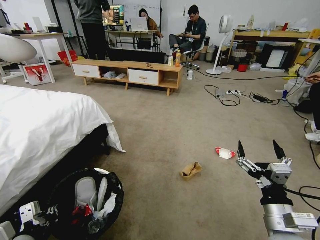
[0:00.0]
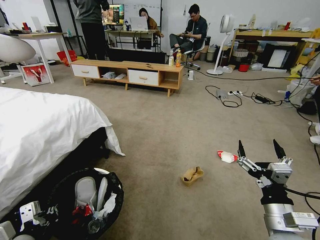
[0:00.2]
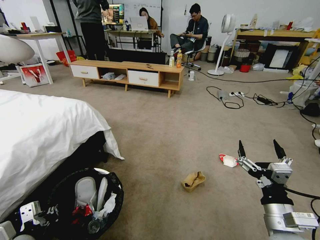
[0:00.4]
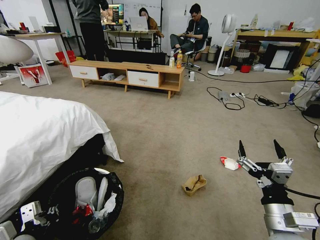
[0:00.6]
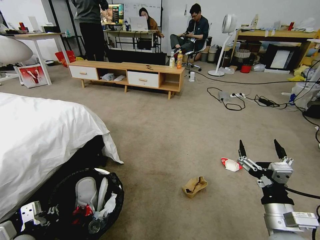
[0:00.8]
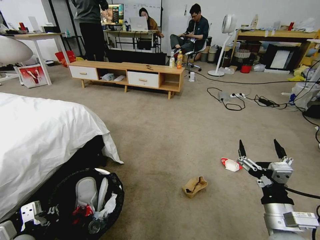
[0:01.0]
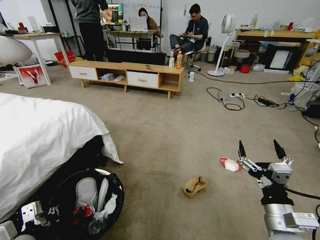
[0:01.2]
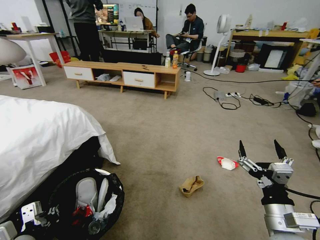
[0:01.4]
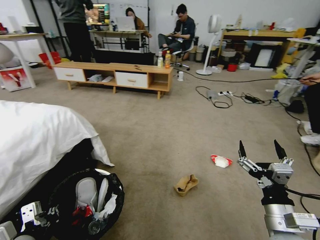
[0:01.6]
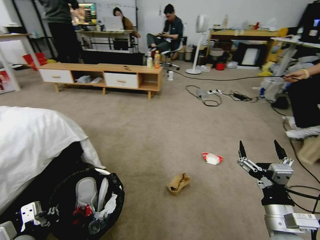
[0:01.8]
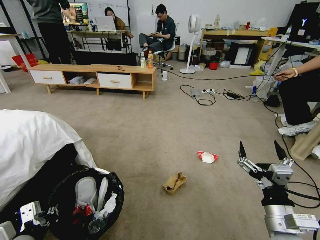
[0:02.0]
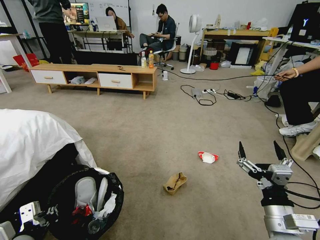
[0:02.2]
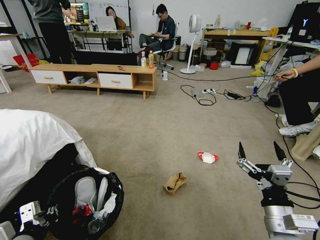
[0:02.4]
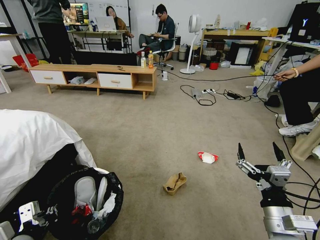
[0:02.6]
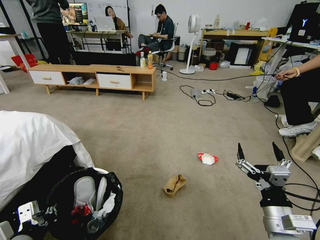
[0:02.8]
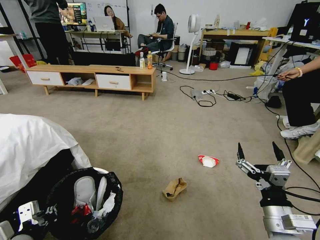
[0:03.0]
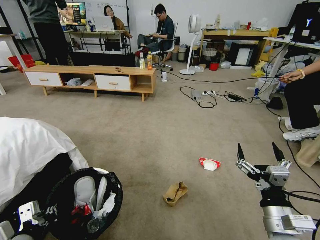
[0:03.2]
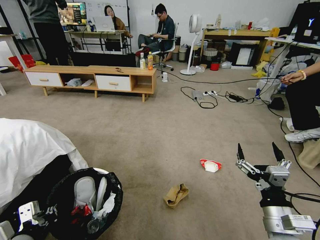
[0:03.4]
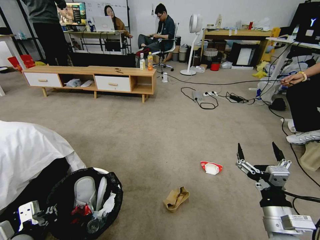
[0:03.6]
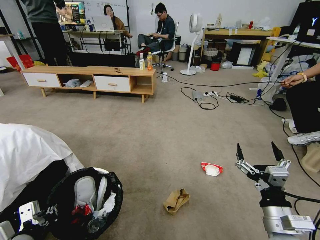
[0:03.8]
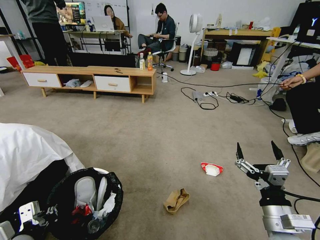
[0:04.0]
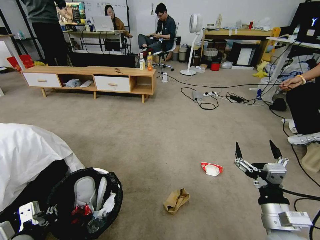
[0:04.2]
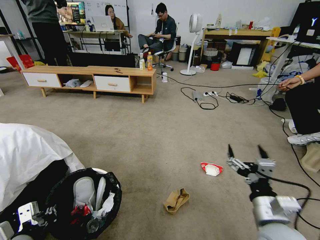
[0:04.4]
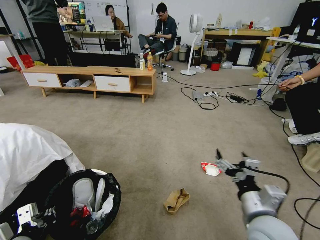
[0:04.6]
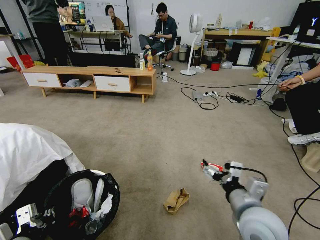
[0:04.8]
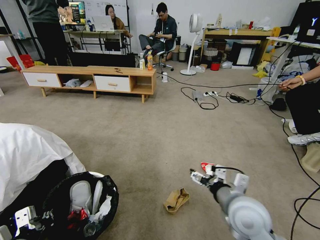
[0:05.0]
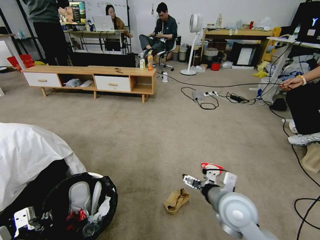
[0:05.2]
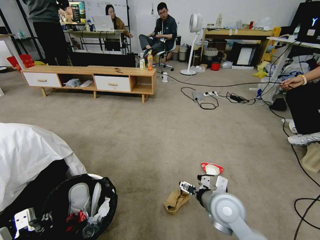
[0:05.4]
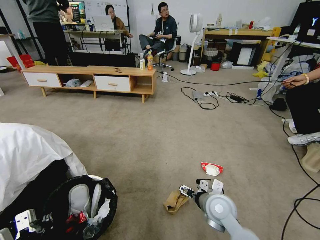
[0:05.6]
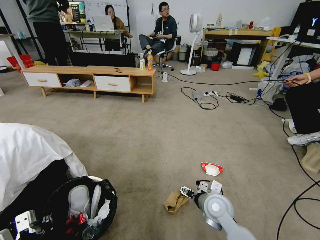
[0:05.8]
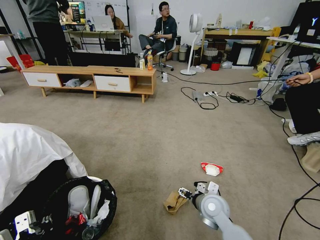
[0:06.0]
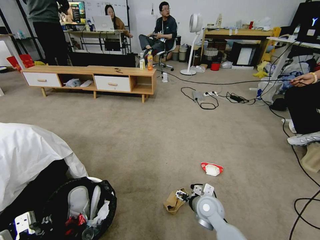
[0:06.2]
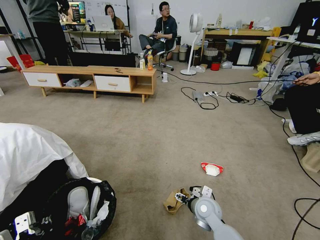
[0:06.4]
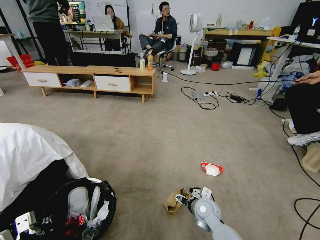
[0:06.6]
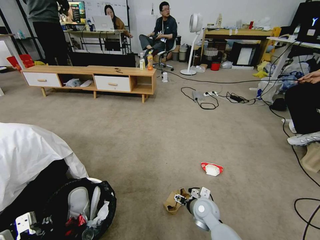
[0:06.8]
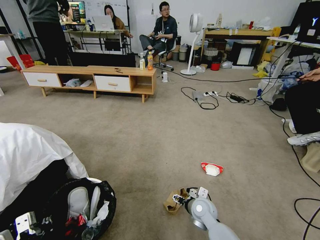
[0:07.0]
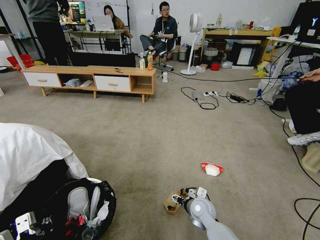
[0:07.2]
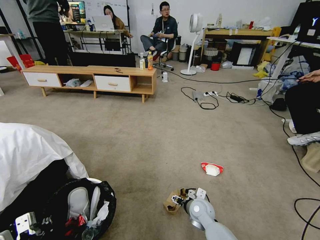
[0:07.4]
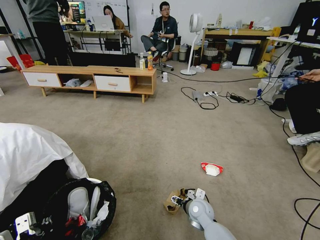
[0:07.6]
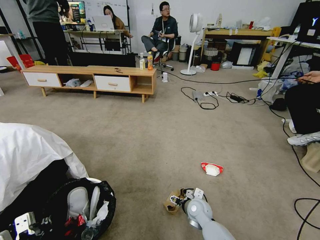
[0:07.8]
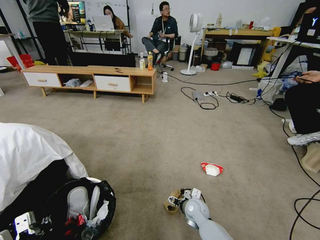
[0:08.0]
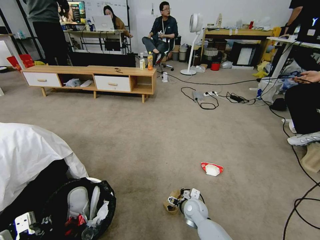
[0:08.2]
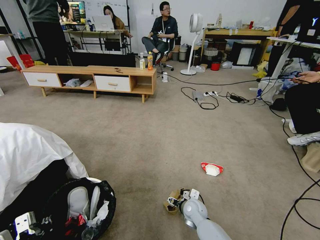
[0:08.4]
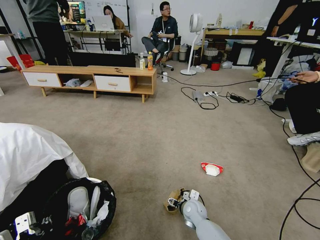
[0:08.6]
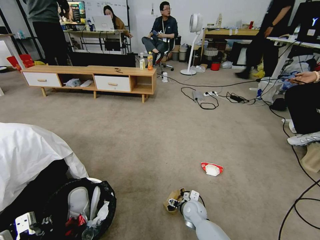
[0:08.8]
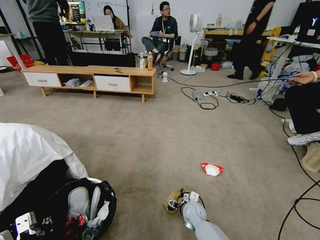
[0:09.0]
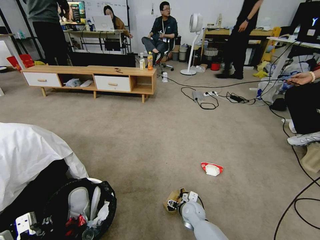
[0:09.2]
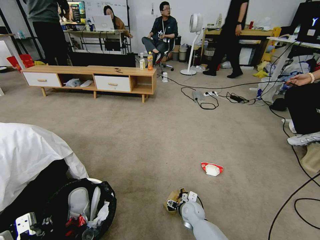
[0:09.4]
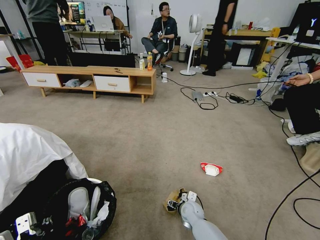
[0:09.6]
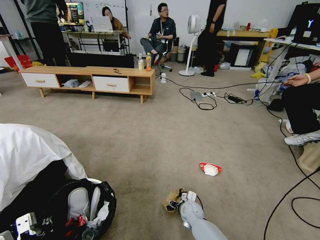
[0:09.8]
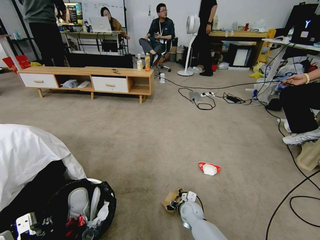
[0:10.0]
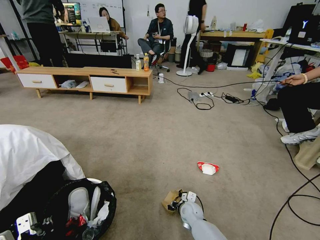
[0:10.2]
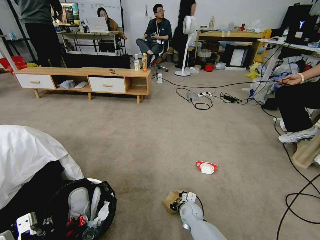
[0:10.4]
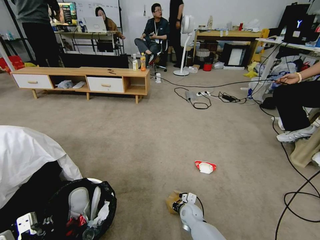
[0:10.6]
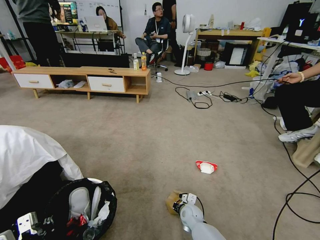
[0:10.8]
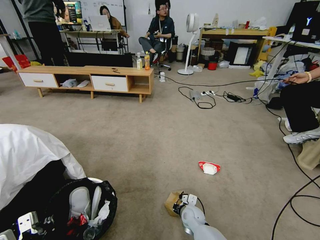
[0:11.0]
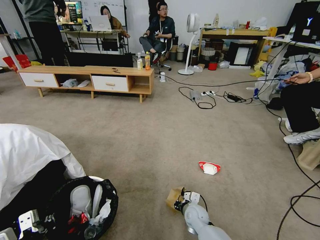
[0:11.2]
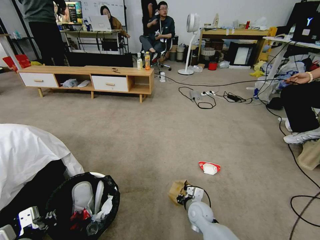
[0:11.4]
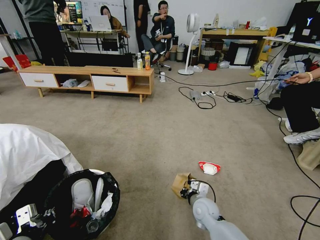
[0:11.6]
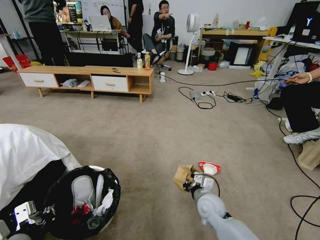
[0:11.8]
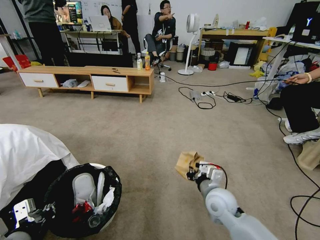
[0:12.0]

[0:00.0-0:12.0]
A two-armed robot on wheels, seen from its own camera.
Task of the whole recording: Pick up the trash bin and place the garbage on the floor into it.
0:04.4 to 0:06.0: The right gripper is displaced forward, downward and to the left by roughly 20 cm.
0:06.0 to 0:07.6: The right gripper travels downward by roughly 10 cm.
0:07.6 to 0:09.0: The right gripper changes place by about 5 cm.
0:09.0 to 0:10.4: The right gripper closes up.
0:10.4 to 0:12.0: The right gripper shifts roughly 20 cm upward; the left gripper shifts roughly 5 cm upward.

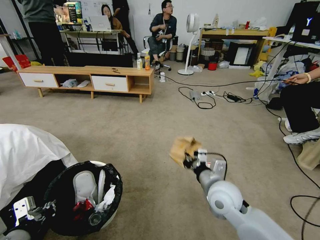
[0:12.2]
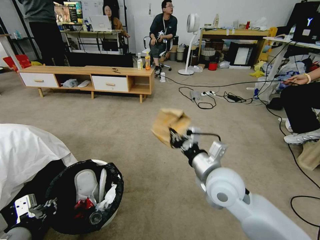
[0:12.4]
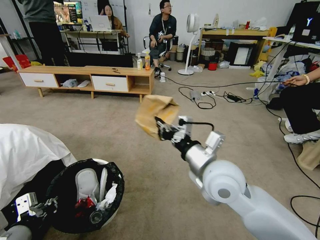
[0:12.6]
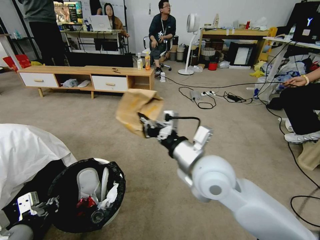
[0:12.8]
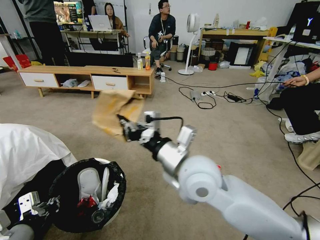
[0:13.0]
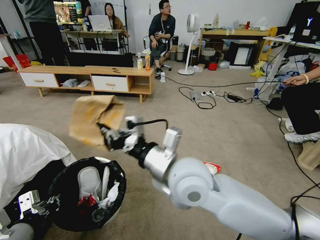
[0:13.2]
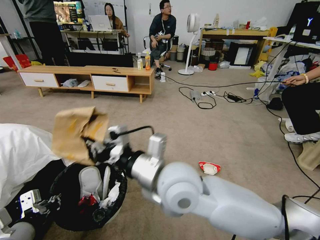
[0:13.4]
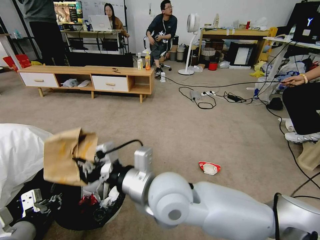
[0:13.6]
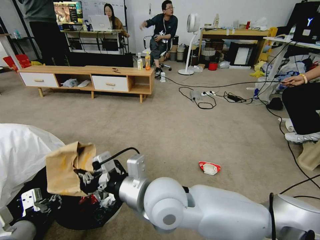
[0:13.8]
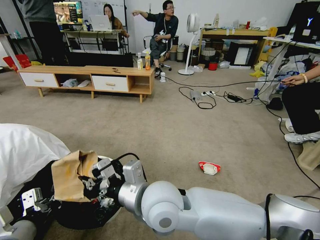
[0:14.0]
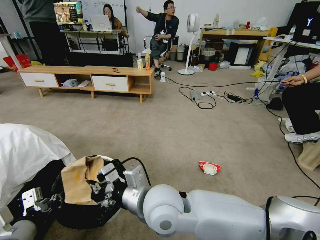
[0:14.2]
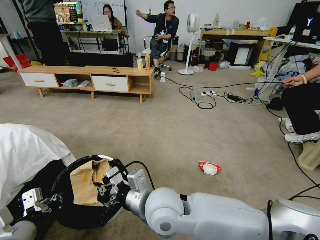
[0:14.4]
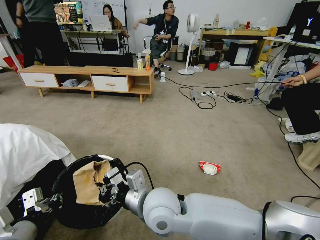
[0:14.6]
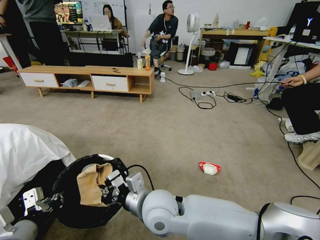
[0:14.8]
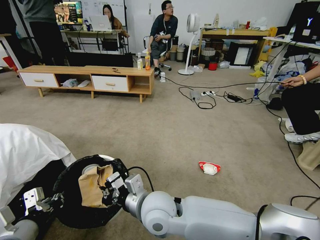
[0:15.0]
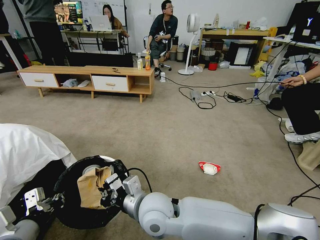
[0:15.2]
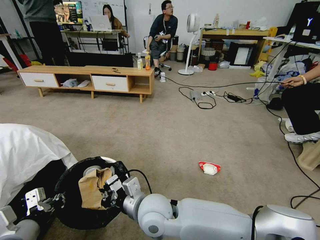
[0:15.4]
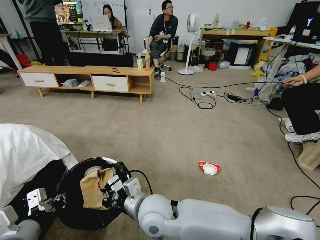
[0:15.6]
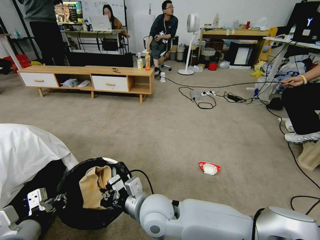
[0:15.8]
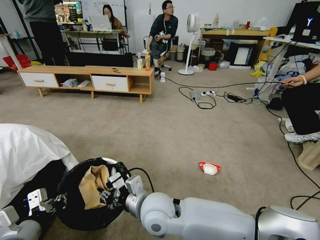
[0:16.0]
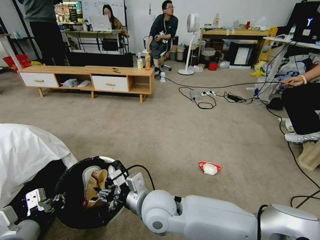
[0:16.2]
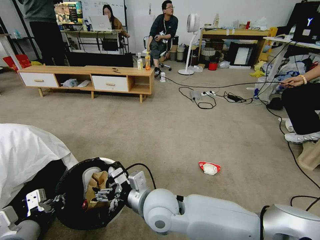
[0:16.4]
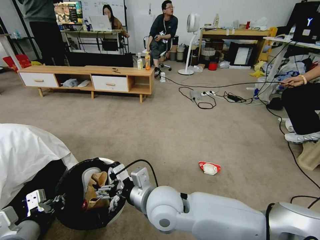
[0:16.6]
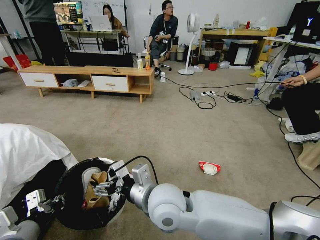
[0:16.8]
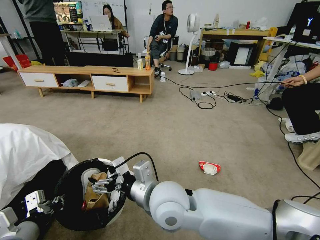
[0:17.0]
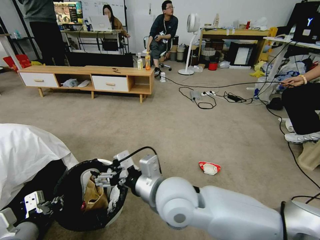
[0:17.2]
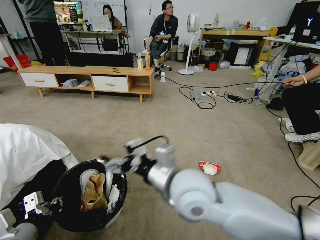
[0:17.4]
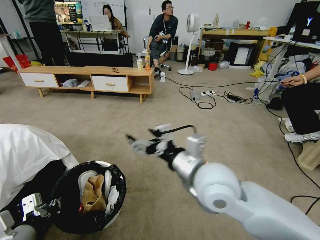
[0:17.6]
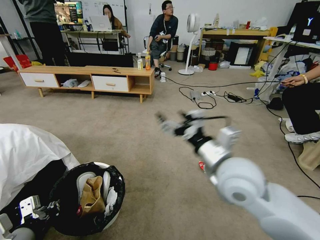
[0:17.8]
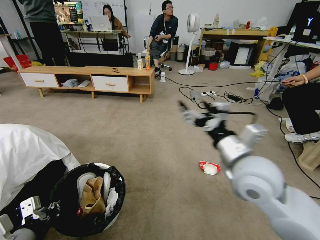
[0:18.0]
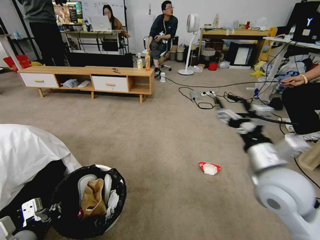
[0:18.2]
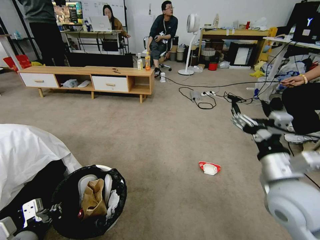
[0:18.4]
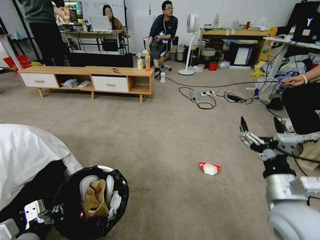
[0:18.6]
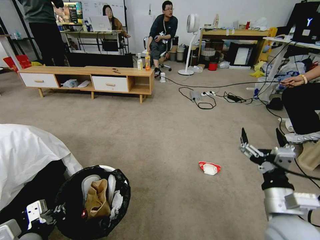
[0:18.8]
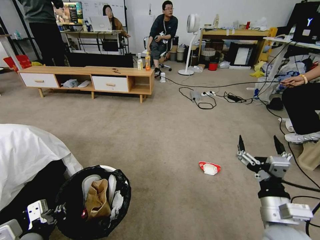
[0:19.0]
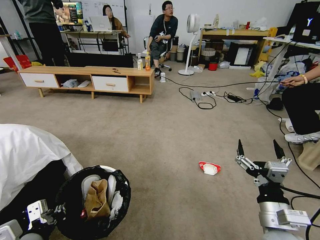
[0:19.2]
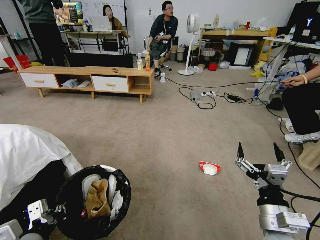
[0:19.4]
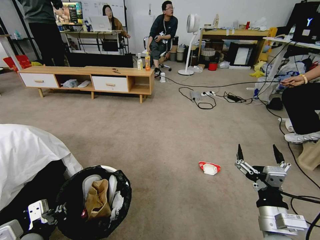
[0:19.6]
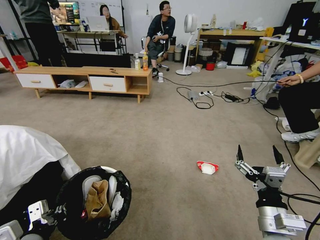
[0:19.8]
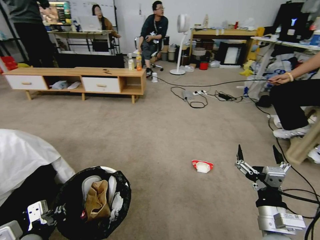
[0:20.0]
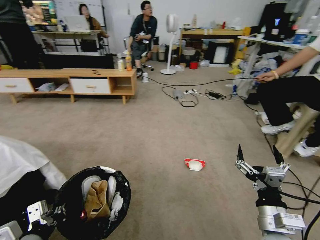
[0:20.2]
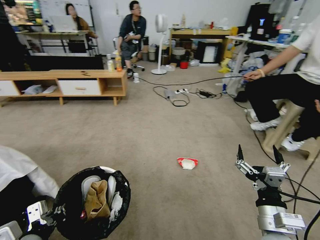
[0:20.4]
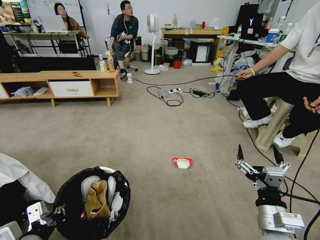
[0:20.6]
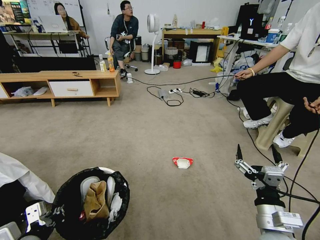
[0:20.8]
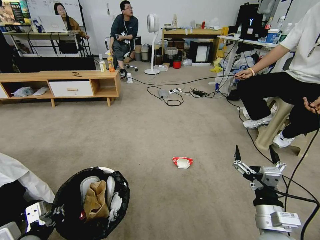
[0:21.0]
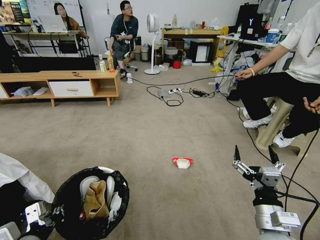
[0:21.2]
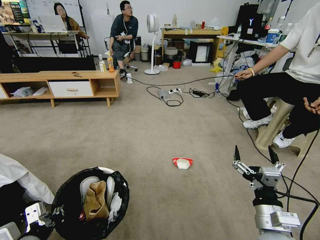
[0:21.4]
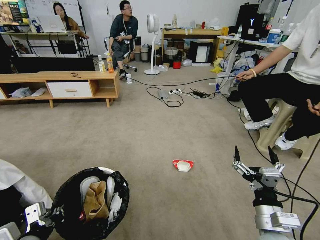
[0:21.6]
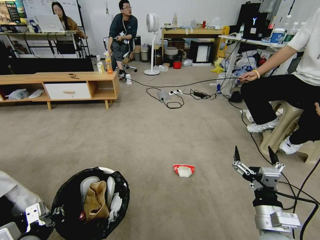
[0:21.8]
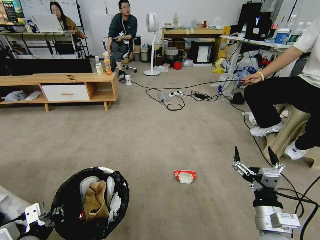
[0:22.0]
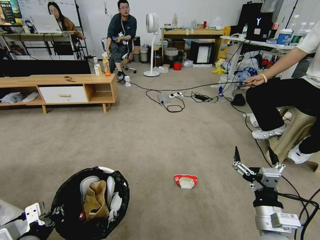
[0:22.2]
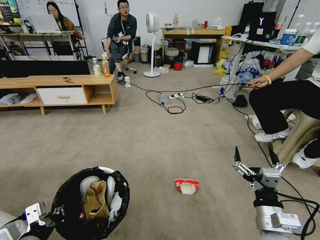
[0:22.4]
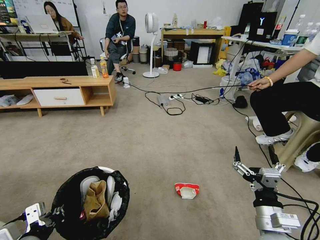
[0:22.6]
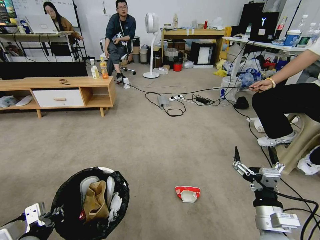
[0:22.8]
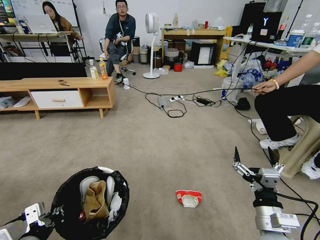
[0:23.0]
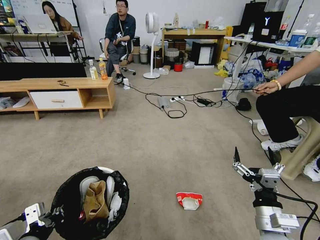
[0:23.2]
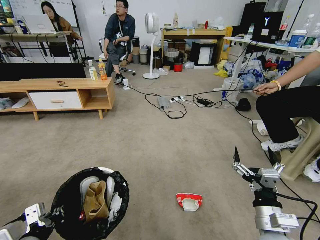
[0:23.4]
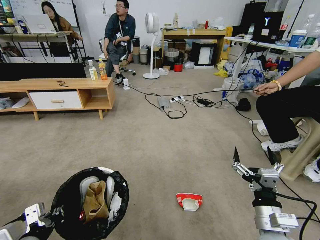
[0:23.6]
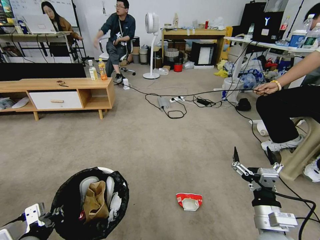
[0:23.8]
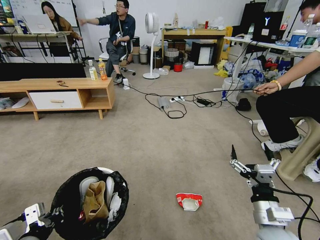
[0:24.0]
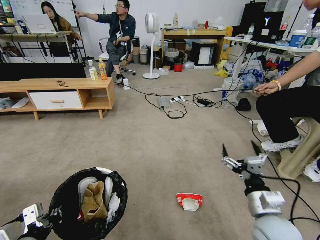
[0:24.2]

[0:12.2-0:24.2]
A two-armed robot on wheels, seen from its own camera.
Task of the whole recording: Pick up the trash bin and place the garbage on the floor into it.
0:12.2 to 0:13.8: The right gripper moves to the left and upward, roughly 20 cm.
0:13.8 to 0:15.2: The right gripper is displaced downward by approximately 10 cm.
0:15.2 to 0:16.6: The right gripper opens.
0:16.6 to 0:18.2: The right gripper moves to the right, approximately 25 cm.
0:18.2 to 0:19.8: The right gripper is displaced downward and backward by some 15 cm.
